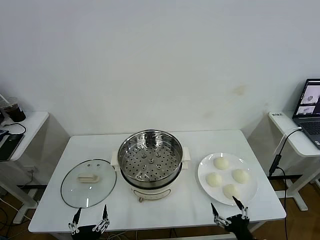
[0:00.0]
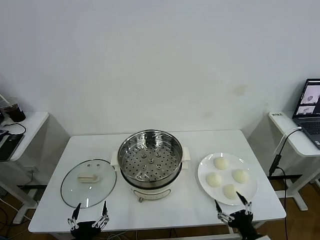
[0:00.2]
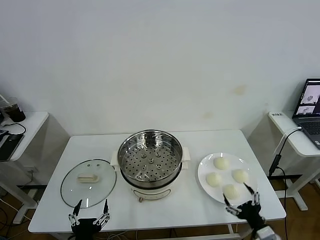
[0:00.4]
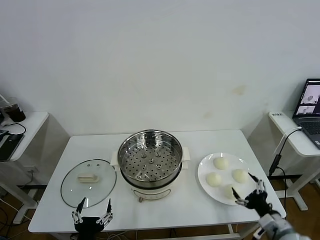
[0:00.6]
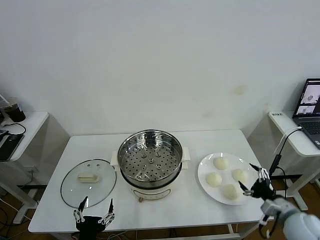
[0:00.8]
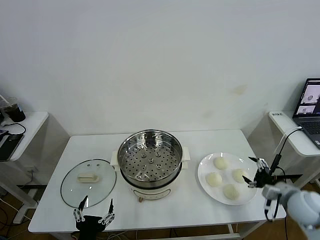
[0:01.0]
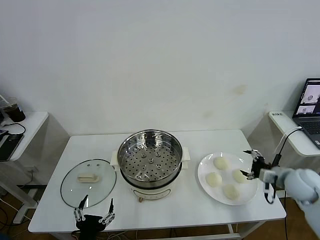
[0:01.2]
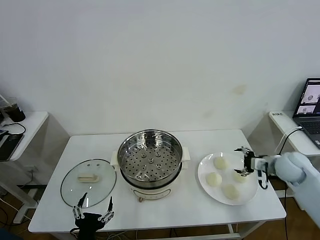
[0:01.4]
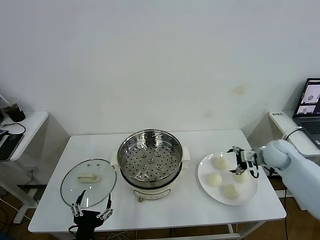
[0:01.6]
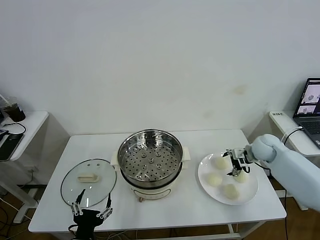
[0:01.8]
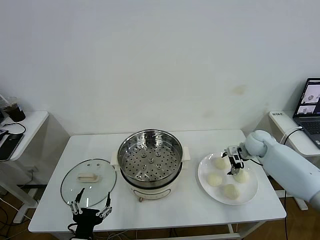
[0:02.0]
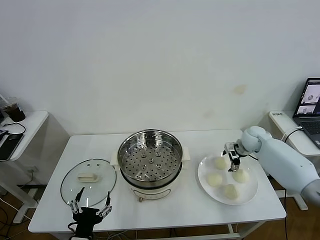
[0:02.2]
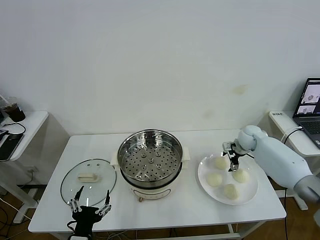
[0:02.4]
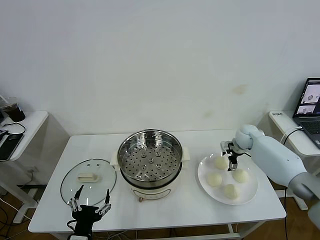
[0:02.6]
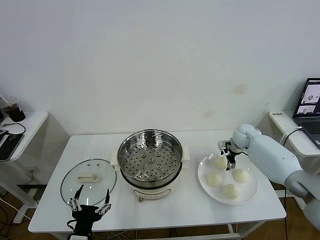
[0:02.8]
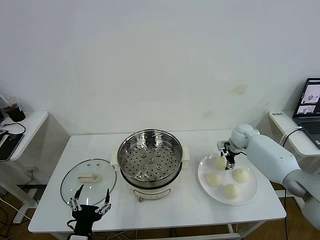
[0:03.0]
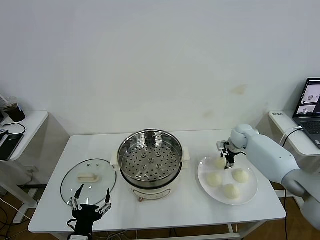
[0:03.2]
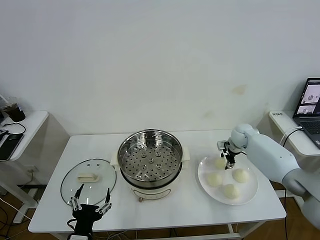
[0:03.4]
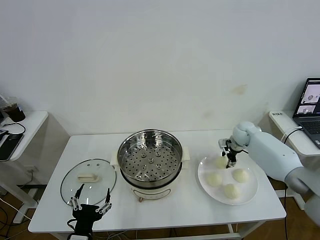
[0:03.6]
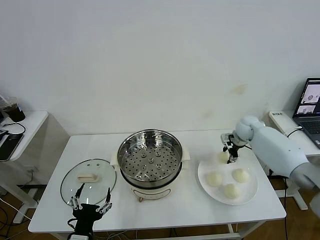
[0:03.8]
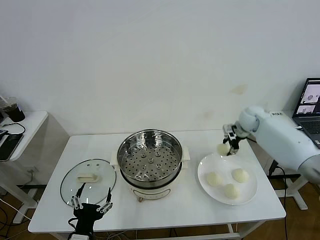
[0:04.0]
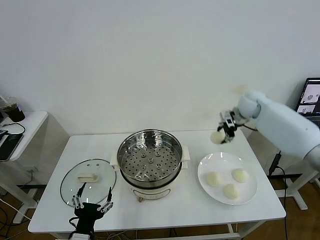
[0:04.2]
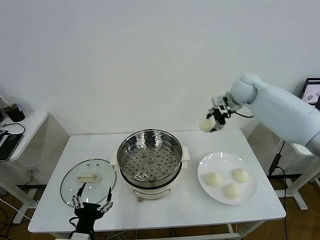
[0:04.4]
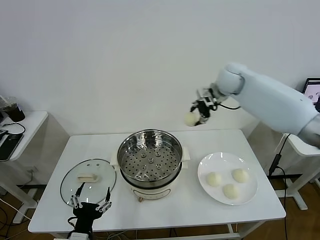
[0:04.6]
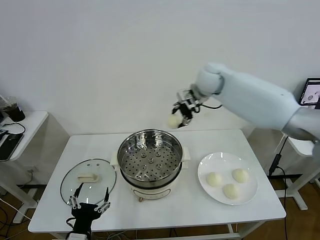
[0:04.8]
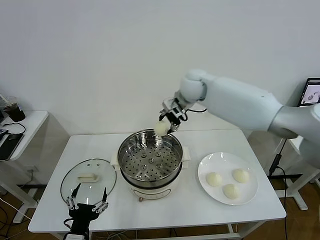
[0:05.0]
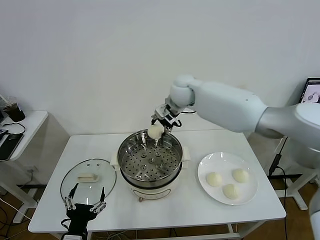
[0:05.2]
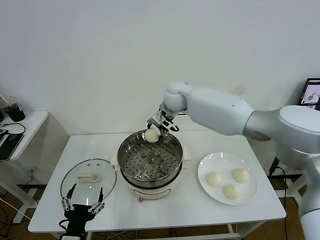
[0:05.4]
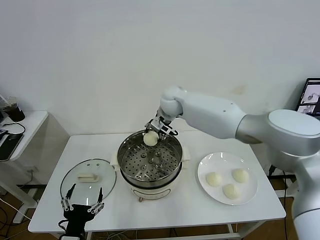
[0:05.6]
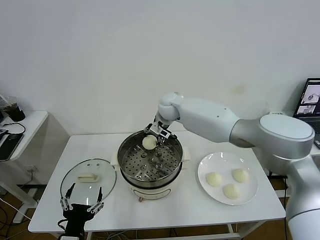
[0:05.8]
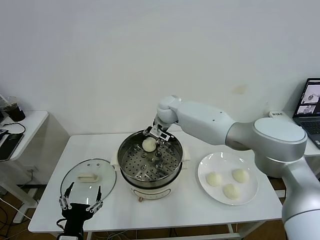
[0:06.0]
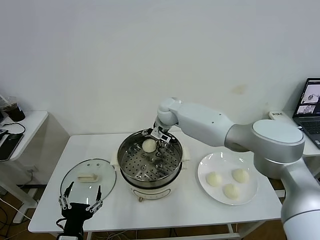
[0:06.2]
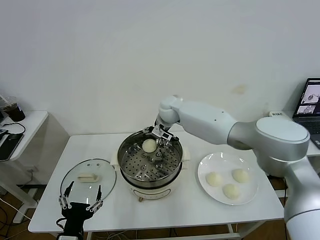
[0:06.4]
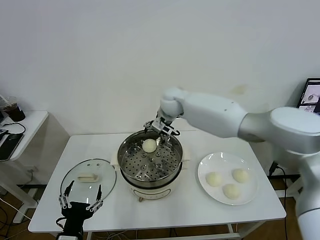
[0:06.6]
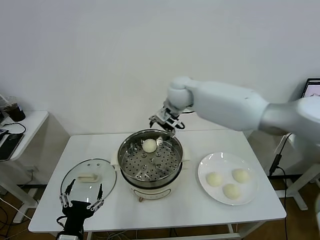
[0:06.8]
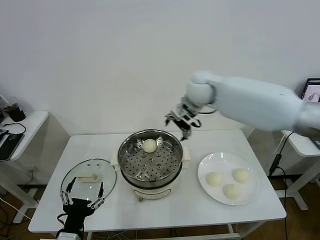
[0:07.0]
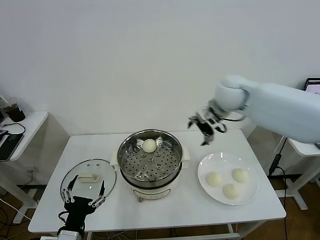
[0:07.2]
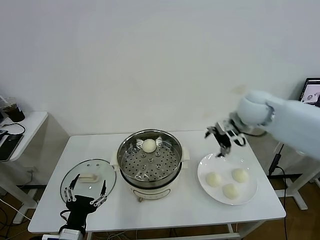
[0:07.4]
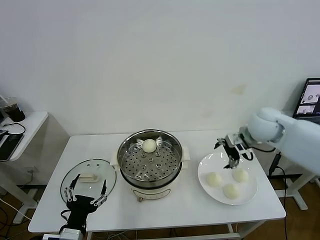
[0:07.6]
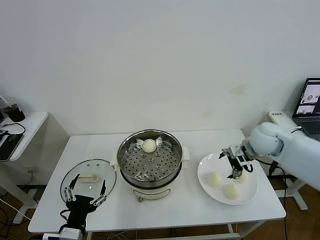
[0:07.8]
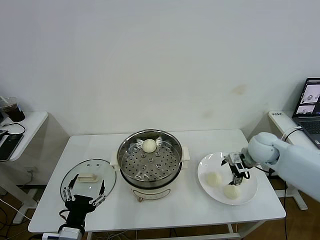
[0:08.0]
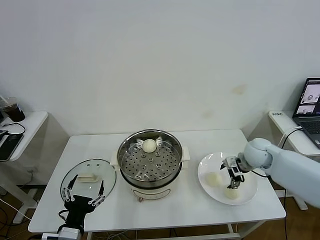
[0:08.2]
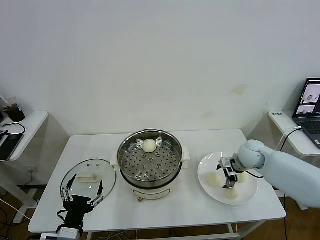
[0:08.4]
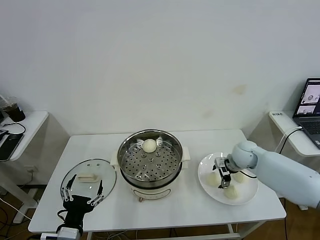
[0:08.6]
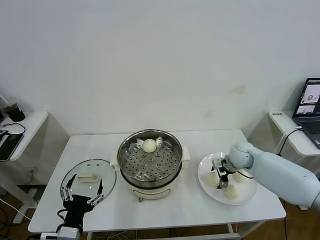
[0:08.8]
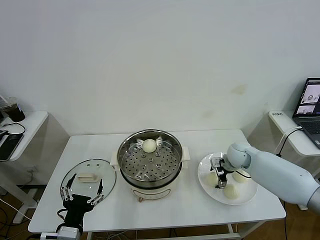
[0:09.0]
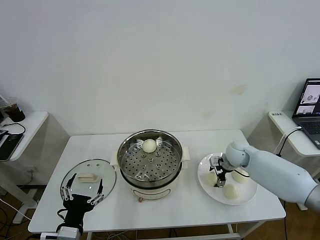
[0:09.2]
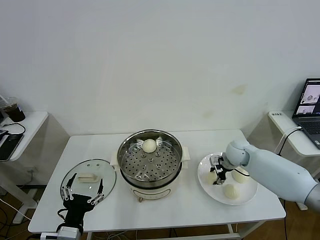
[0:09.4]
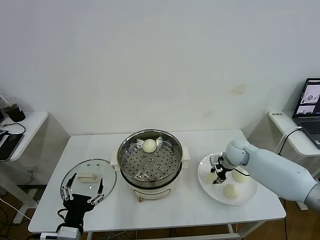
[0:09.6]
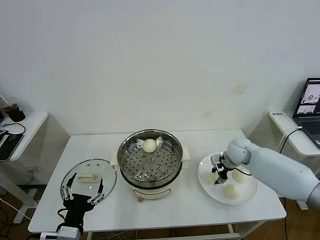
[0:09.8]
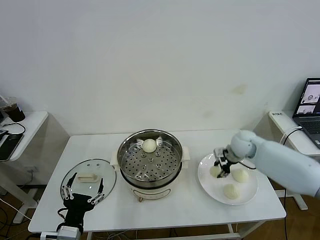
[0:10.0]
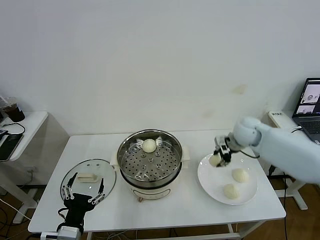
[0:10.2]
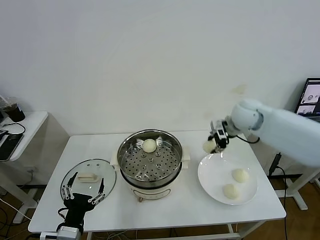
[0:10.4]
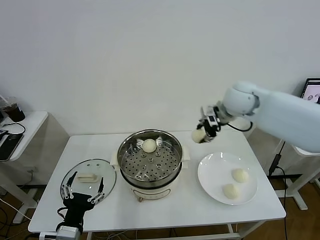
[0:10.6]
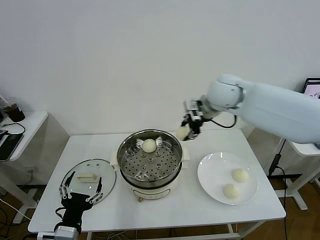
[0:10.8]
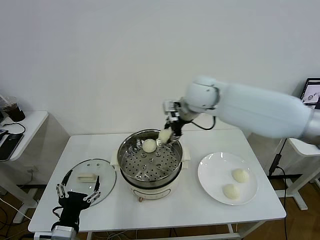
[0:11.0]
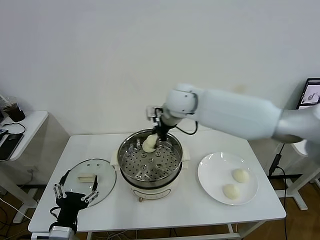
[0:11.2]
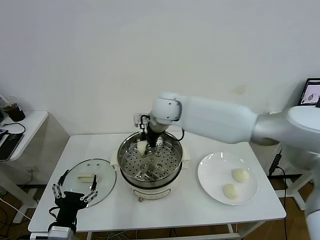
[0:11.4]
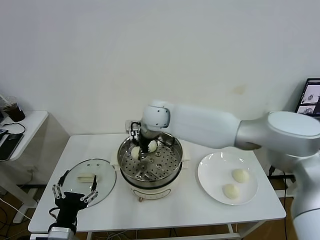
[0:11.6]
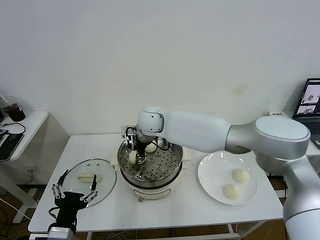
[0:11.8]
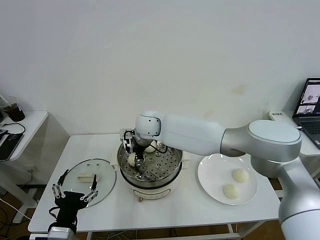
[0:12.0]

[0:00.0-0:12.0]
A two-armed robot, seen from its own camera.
Task of the whole recording: take steamed baozi put them in steamer then cover it.
Step, 0:00.0 to 0:03.0: Grasp the baozi in the plate with right gripper.
Step, 0:03.4 to 0:06.2: Place the baozi on the steamer with right gripper.
Step, 0:06.4 to 0:09.2: Grasp the baozi in the plate with right gripper.
0:01.6 to 0:03.0: The right gripper travels forward and to the left by some 15 cm, and closes its fingers.
0:03.0 to 0:04.4: The right gripper travels upward by approximately 20 cm, and closes.
0:04.4 to 0:06.0: The right gripper moves to the left, roughly 25 cm.
0:06.0 to 0:07.6: The right gripper travels to the right and backward by approximately 30 cm, and opens its fingers.
0:07.6 to 0:09.0: The right gripper travels downward by some 15 cm.
0:09.0 to 0:10.4: The right gripper shifts approximately 20 cm upward, and closes up.
0:10.4 to 0:12.0: The right gripper shifts some 30 cm to the left.

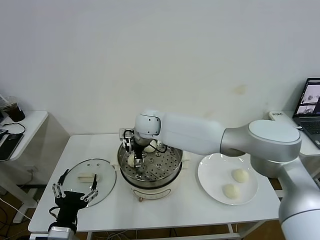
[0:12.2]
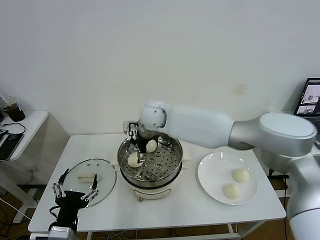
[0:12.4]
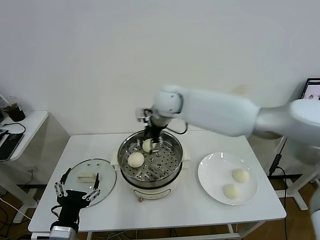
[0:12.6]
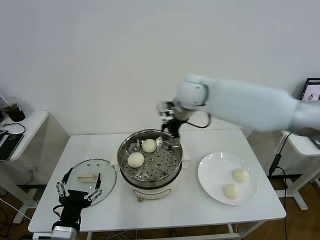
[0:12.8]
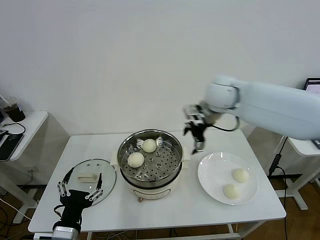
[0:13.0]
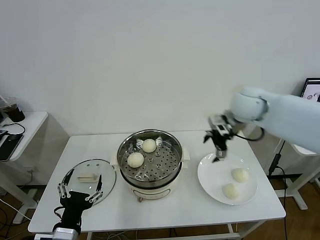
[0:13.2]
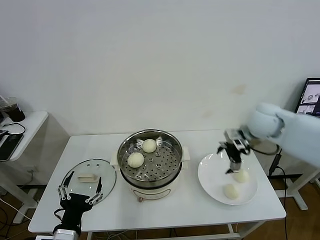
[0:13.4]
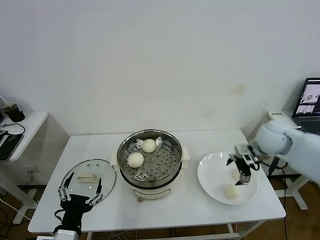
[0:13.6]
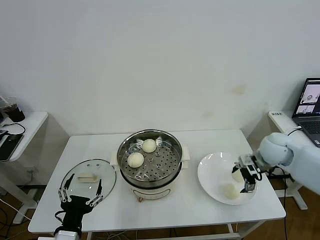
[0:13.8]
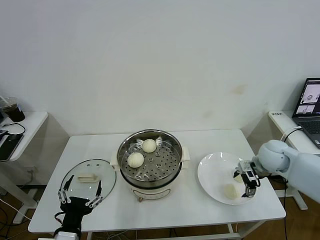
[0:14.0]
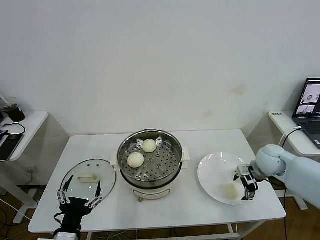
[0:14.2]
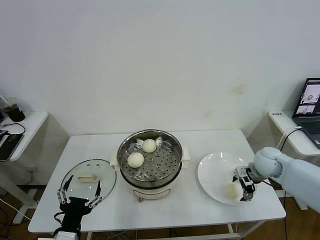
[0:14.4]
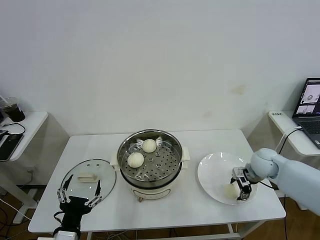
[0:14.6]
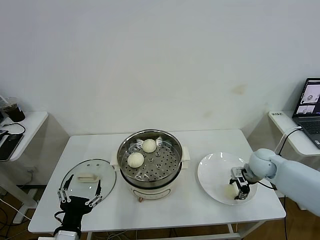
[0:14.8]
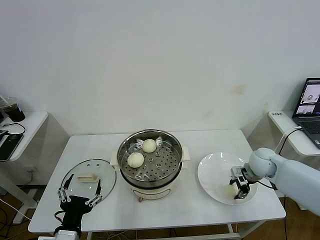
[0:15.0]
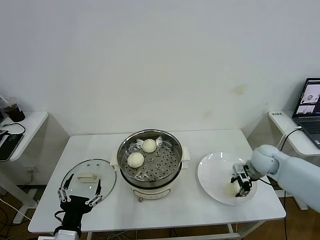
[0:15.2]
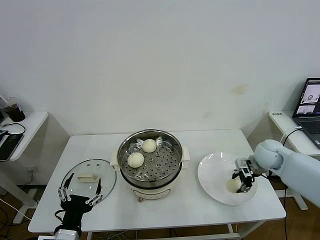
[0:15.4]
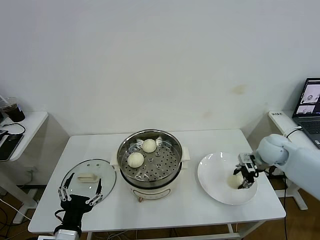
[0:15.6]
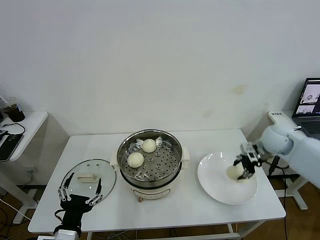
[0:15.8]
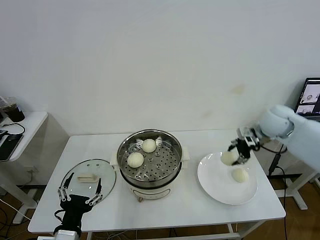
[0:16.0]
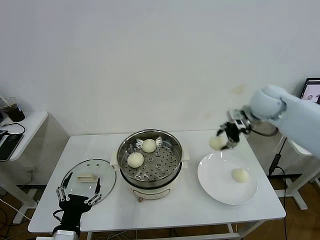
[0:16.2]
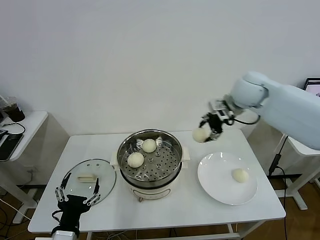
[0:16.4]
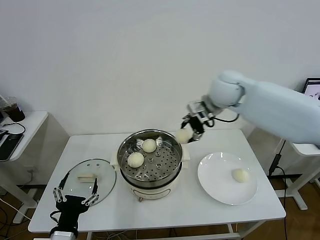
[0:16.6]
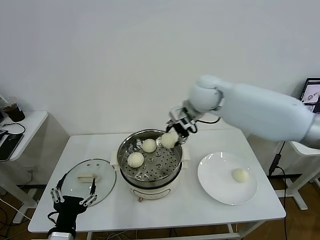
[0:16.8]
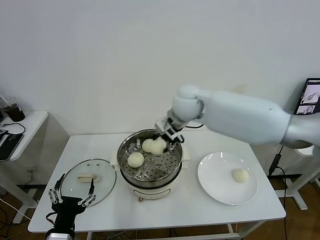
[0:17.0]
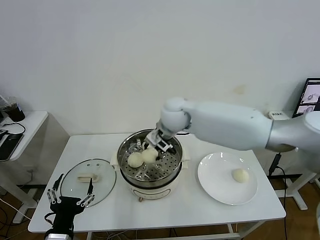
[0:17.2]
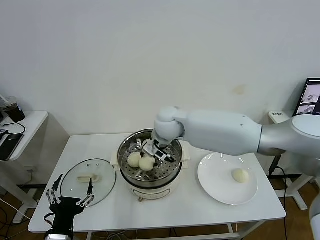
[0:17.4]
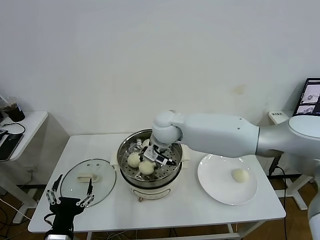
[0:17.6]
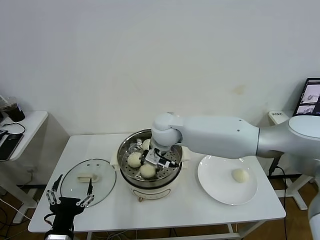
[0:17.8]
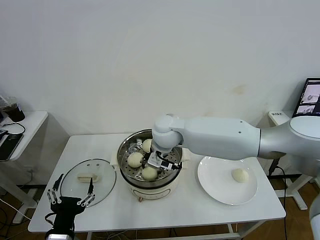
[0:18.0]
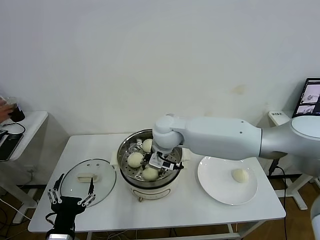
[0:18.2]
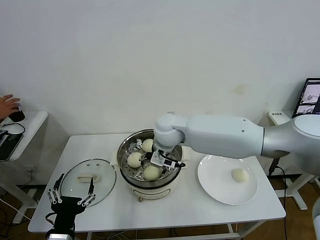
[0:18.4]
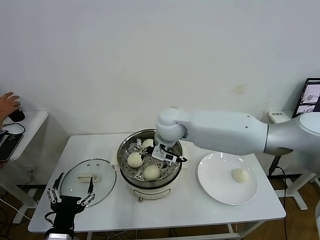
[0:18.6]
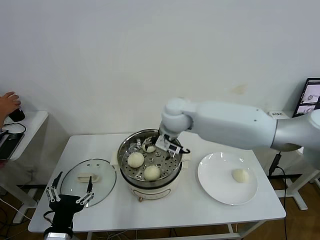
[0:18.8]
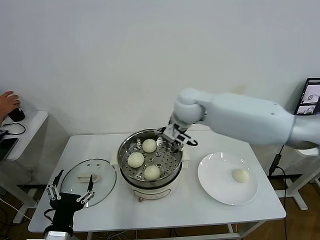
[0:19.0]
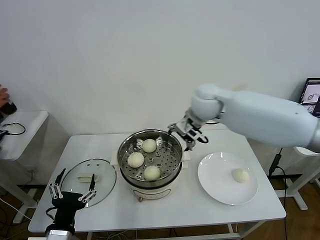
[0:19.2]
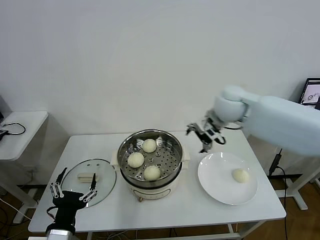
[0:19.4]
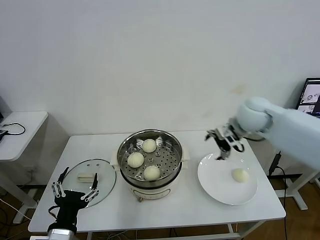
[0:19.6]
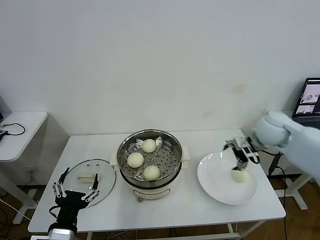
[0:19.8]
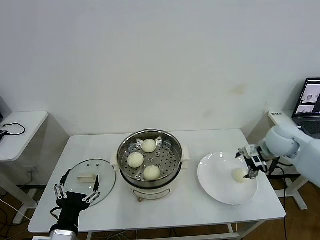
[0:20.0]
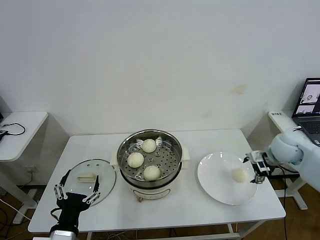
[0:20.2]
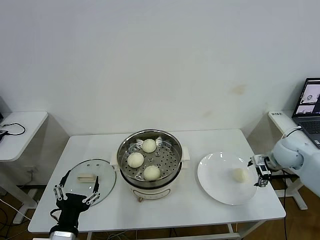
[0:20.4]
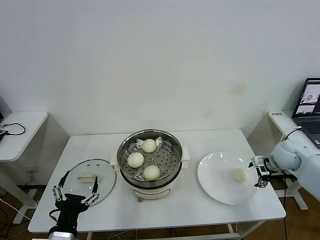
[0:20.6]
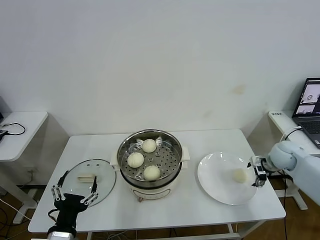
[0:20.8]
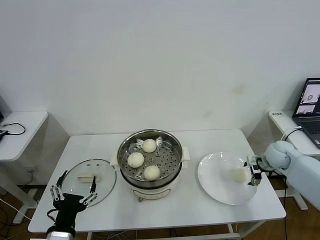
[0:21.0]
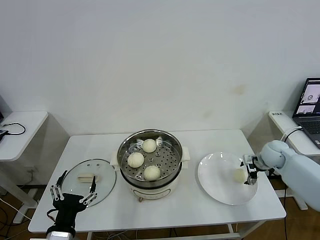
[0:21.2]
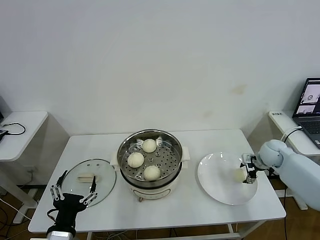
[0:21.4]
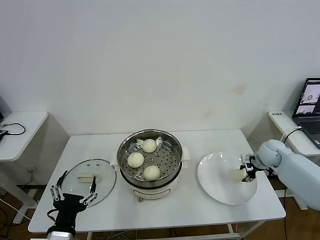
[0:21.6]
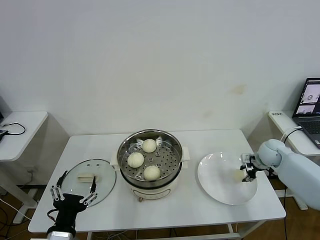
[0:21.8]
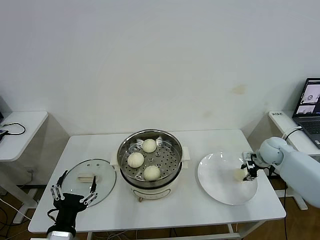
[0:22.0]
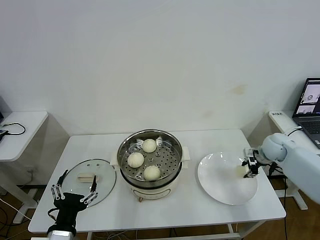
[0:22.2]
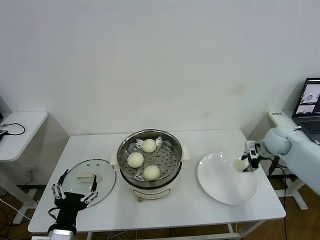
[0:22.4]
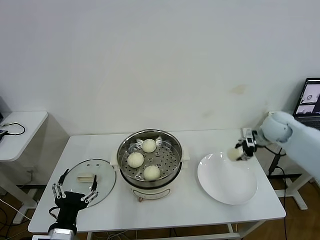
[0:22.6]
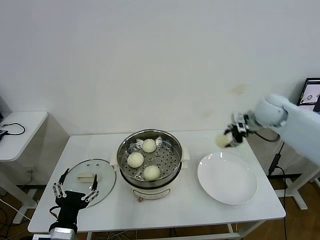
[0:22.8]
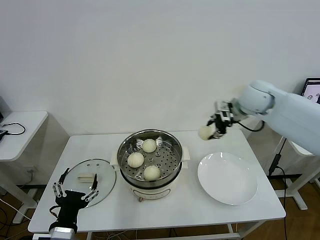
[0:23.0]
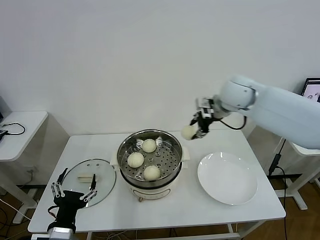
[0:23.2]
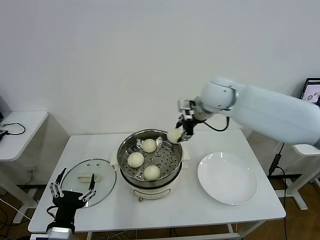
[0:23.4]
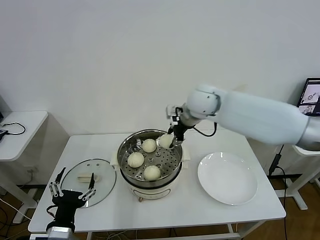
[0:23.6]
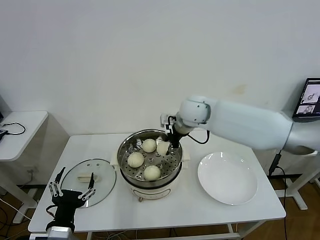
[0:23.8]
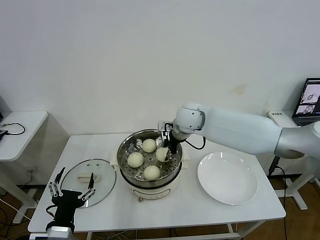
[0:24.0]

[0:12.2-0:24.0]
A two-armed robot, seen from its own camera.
Task of the whole recording: take steamed baozi put them in steamer then cover it.
Step, 0:12.4 to 0:14.8: Grasp the baozi in the plate with right gripper.
Step, 0:15.0 to 0:18.4: Place the baozi on the steamer with right gripper.
Step, 0:18.6 to 0:21.6: Grasp the baozi in the plate with right gripper.
0:12.2 to 0:13.6: The right gripper goes some 40 cm to the right.
0:13.6 to 0:15.2: The right gripper goes about 10 cm downward, and closes.
0:15.2 to 0:16.6: The right gripper heads upward and to the left, covering some 30 cm.
0:16.6 to 0:18.2: The right gripper is displaced to the left and downward by about 20 cm.
0:18.2 to 0:19.6: The right gripper shifts roughly 25 cm to the right, and opens up.
0:19.6 to 0:21.0: The right gripper heads downward and to the right, covering some 25 cm.
0:21.0 to 0:22.6: The right gripper goes roughly 10 cm upward, and closes its fingers.
0:22.6 to 0:24.0: The right gripper is displaced to the left by approximately 30 cm.
